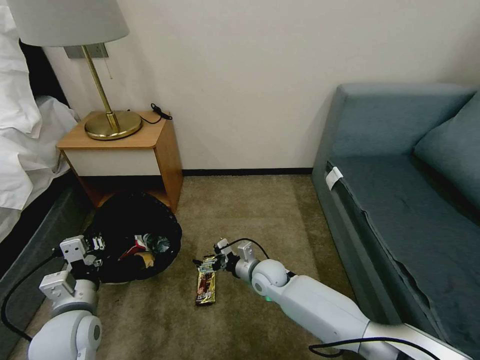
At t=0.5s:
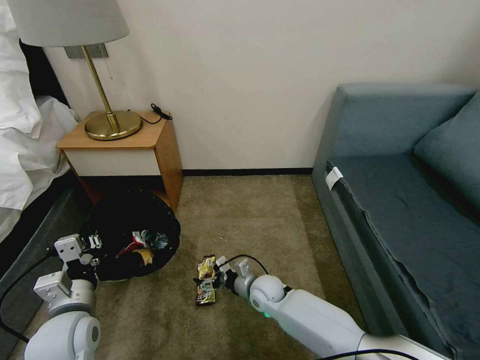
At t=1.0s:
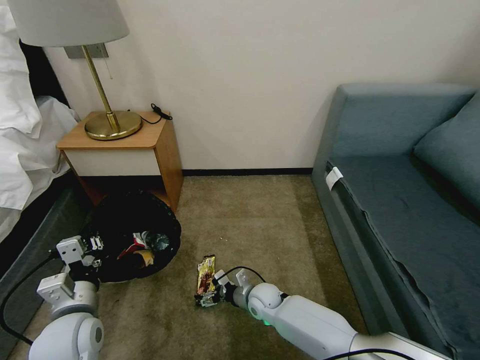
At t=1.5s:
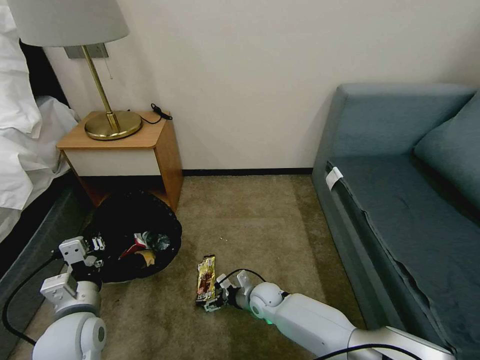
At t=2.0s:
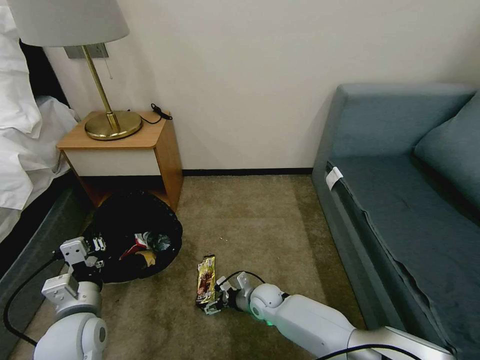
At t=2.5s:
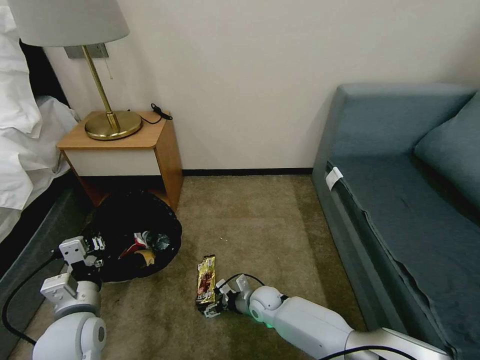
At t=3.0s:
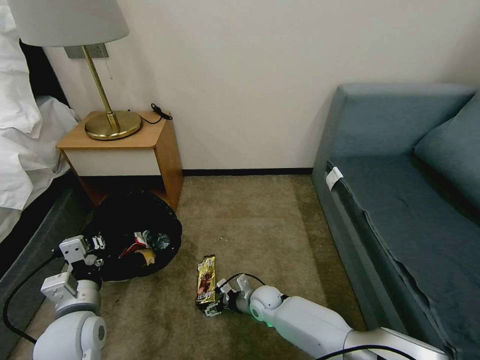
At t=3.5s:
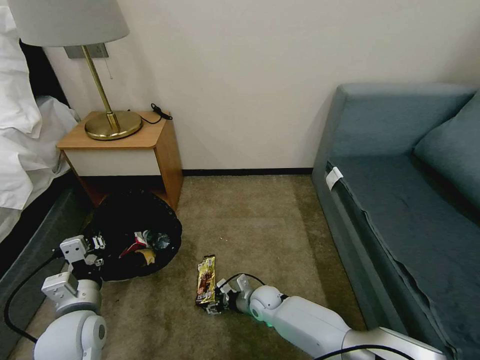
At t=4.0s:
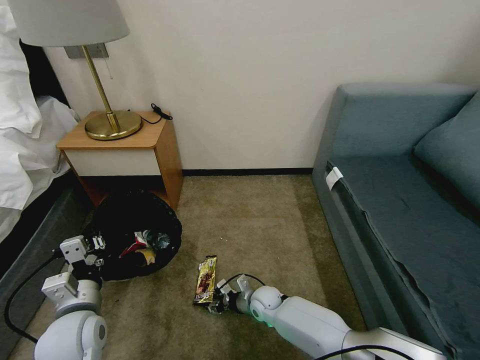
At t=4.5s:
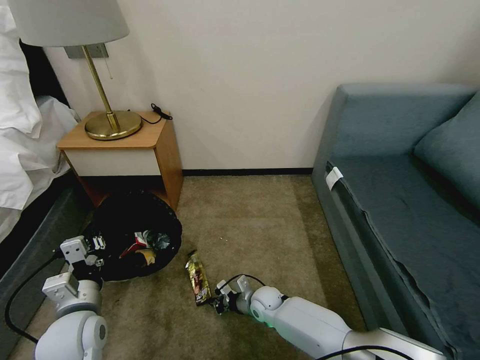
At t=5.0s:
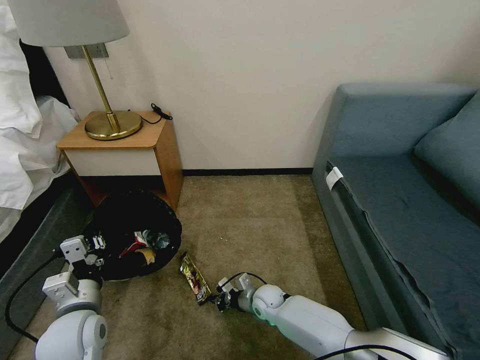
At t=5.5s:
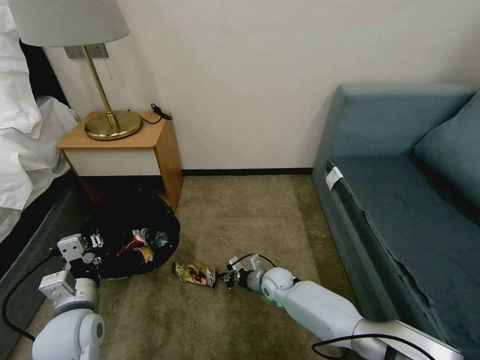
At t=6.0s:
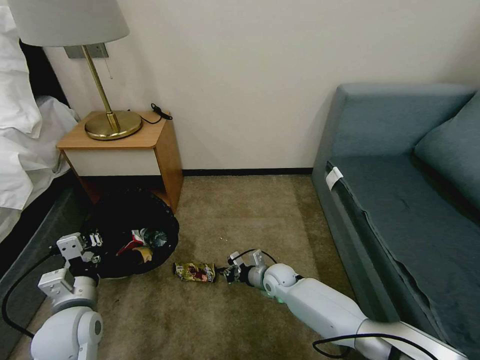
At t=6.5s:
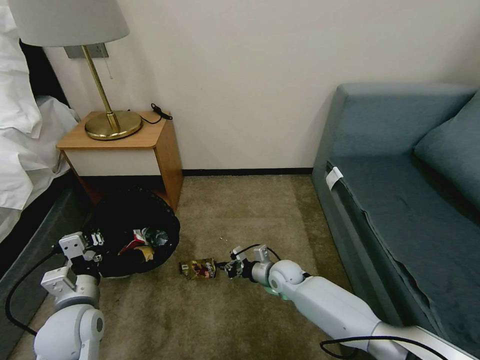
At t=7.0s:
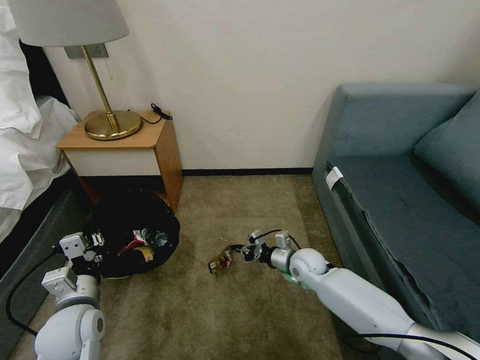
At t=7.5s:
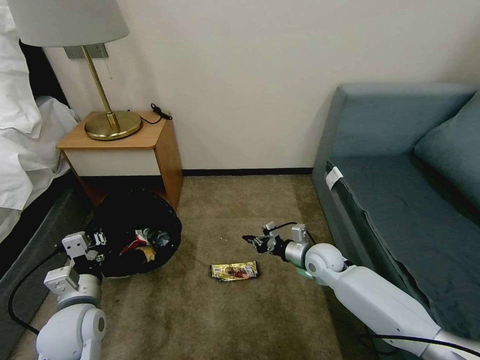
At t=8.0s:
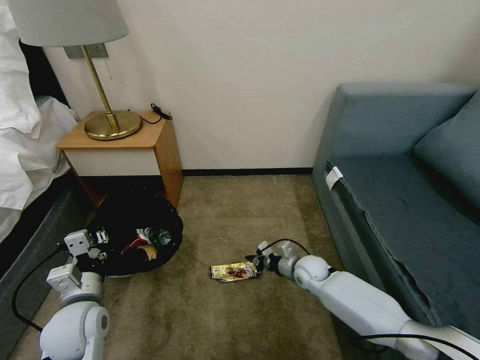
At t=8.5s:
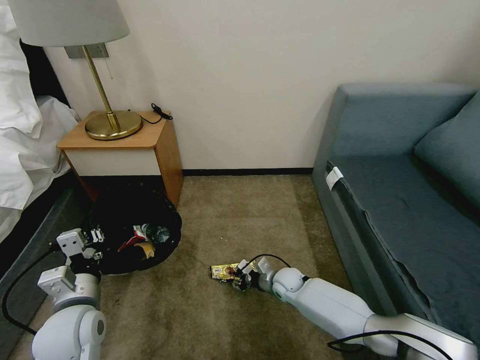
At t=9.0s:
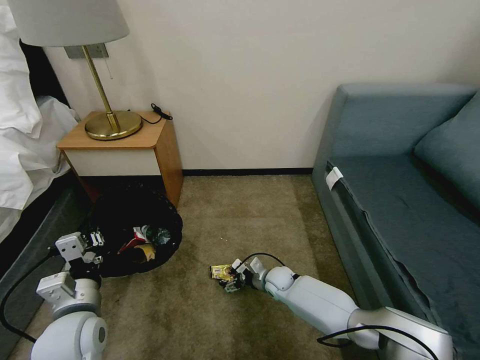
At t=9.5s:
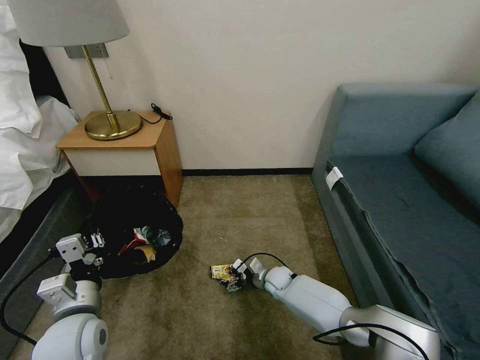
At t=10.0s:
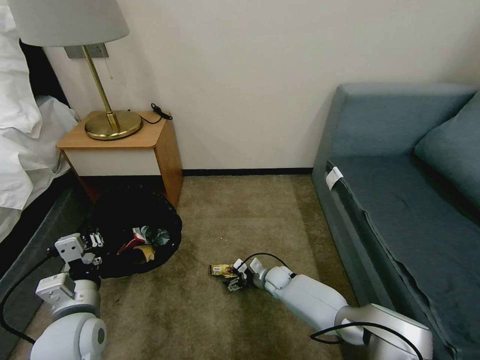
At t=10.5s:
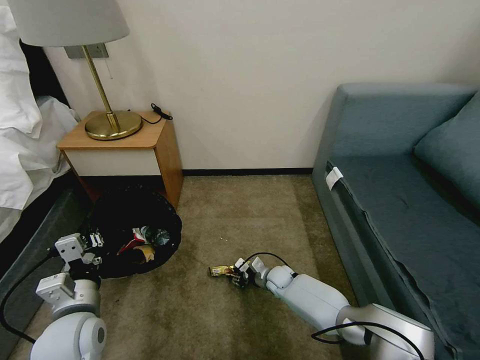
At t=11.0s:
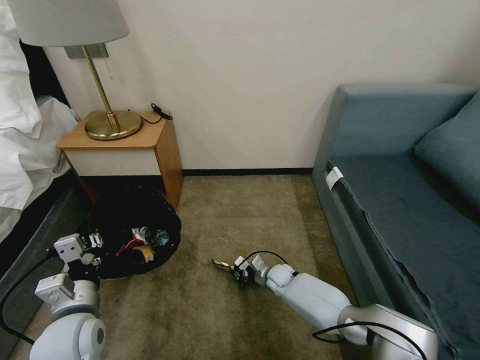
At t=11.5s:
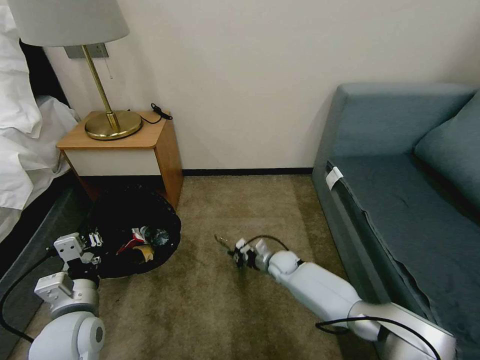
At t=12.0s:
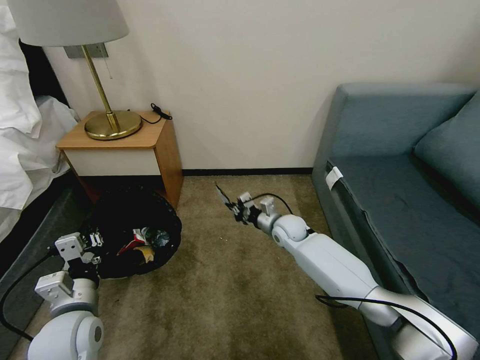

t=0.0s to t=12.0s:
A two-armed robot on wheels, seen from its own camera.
Task of the whole recording: Pick up the trash bin, then pick up the garbage on the floor and place it into the trash bin.
t=0.0s to t=2.0s: The right gripper goes roughly 10 cm downward.
t=2.0s to t=4.0s: The right gripper closes.
t=4.0s to t=6.0s: The right gripper is displaced forward by approximately 5 cm, and closes.
t=6.0s to t=8.0s: The right gripper heads to the right, covering some 10 cm, and reaches about 10 cm upward, then returns.
t=8.0s to t=10.0s: The right gripper heads downward and to the left, covering some 10 cm, and opens.
t=10.0s to t=12.0s: The right gripper moves upward and forward, about 20 cm, and closes.

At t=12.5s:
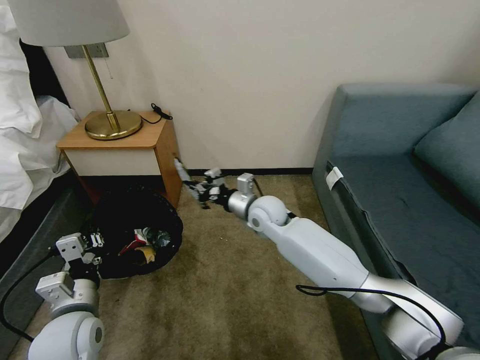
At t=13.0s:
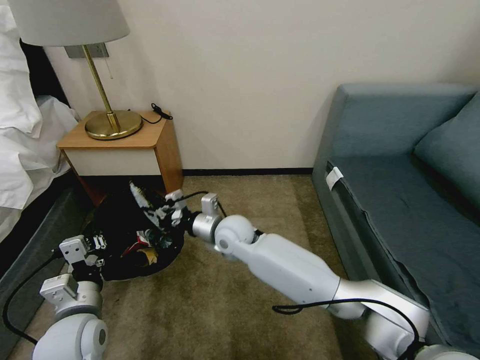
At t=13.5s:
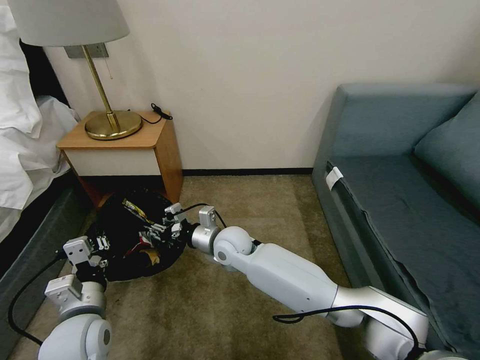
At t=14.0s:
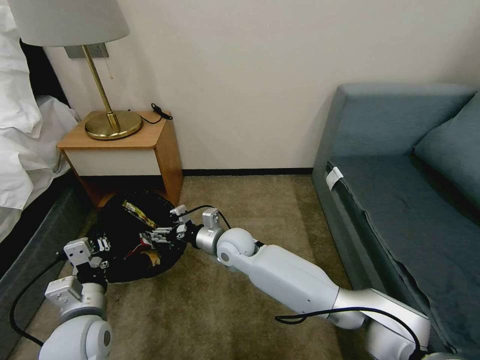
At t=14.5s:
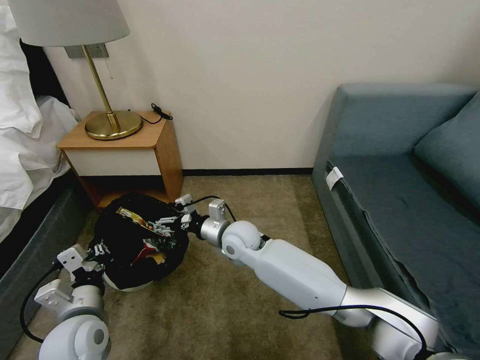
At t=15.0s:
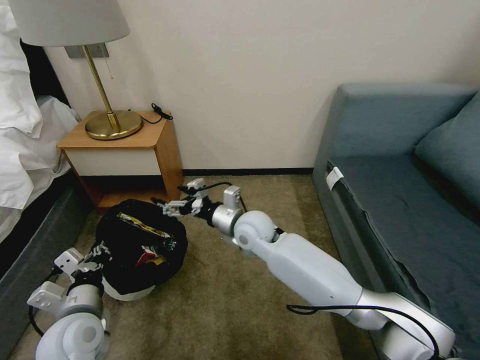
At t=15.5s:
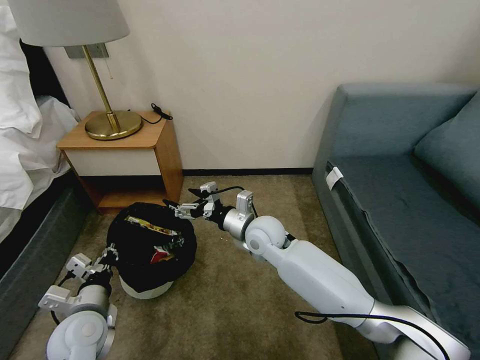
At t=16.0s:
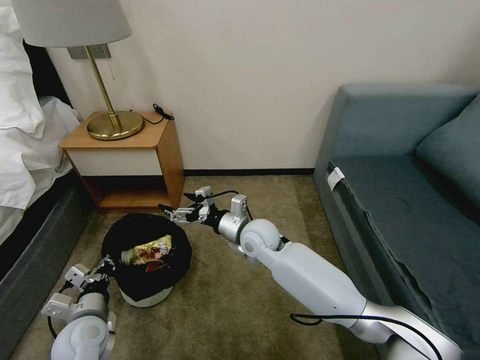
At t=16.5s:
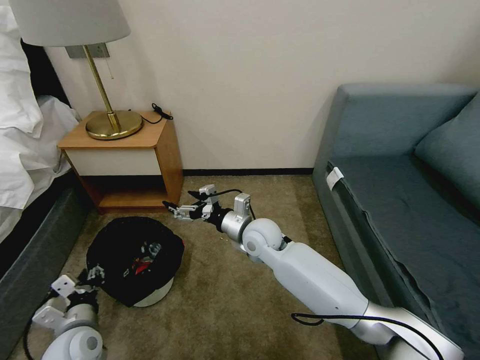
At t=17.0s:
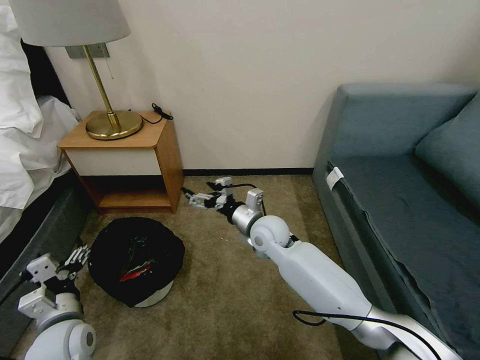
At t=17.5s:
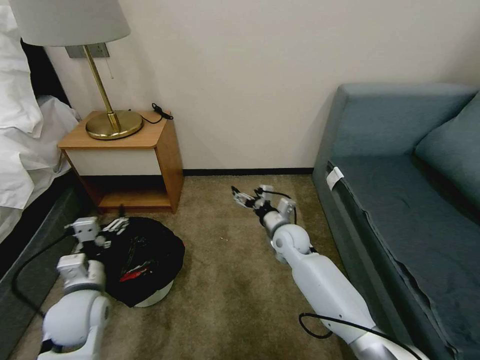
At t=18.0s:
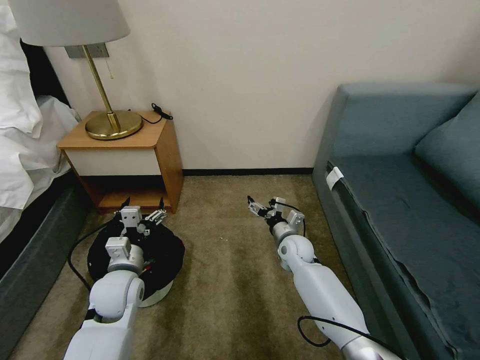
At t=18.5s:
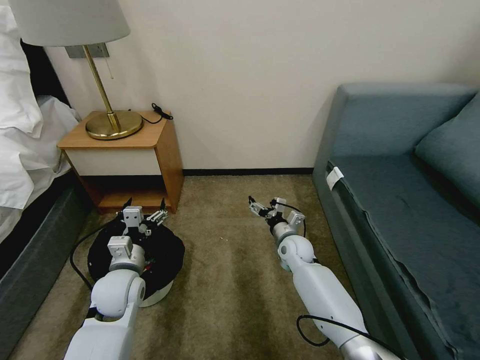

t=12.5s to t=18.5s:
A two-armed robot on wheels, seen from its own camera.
Task of the whole recording: Pick up the trash bin, then pick up the garbage on the floor and place it into the trash bin.
t=12.5s to t=14.5s: The right gripper shifts roughly 5 cm to the left, and opens its fingers.
t=14.5s to t=16.5s: The left gripper goes approximately 5 cm downward, and opens up. The right gripper travels to the right by approximately 5 cm.
t=16.5s to t=18.5s: The right gripper goes about 15 cm downward and to the right, while the left gripper moves forward and to the right, some 15 cm, and opens up.
